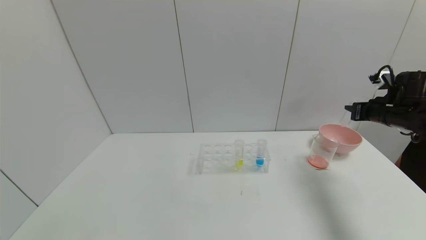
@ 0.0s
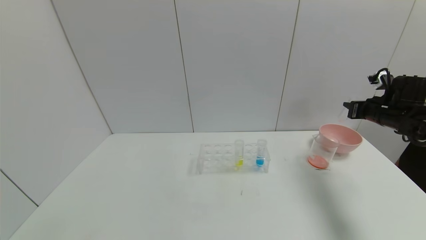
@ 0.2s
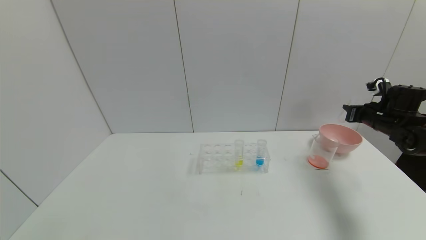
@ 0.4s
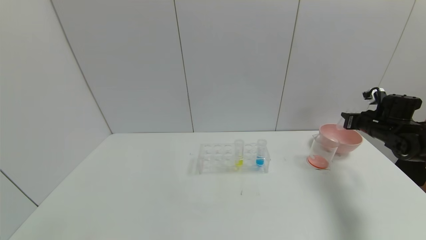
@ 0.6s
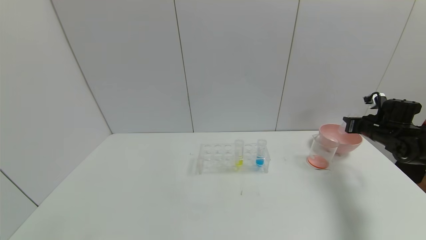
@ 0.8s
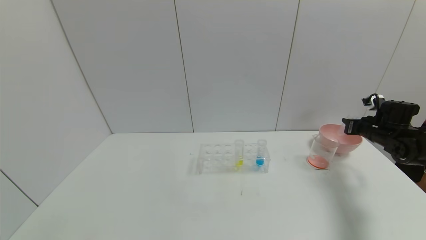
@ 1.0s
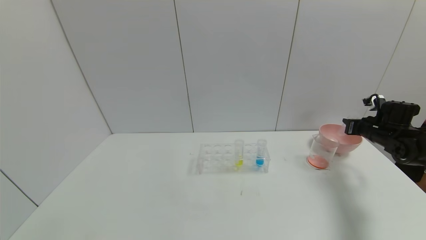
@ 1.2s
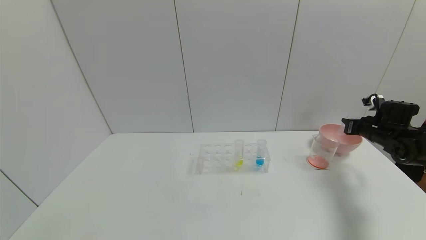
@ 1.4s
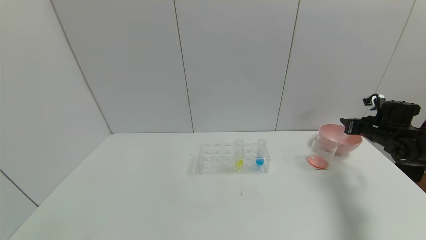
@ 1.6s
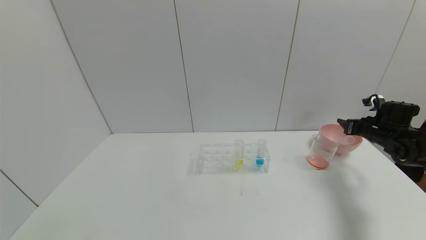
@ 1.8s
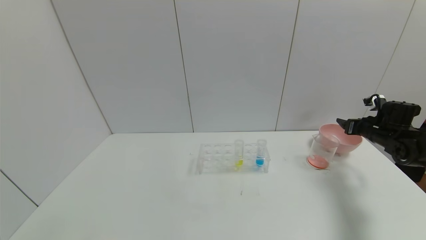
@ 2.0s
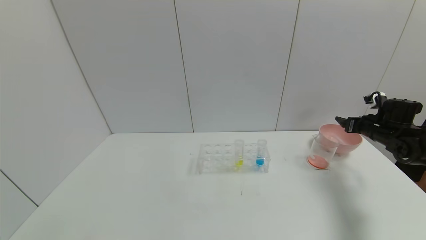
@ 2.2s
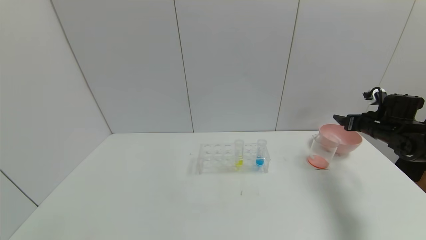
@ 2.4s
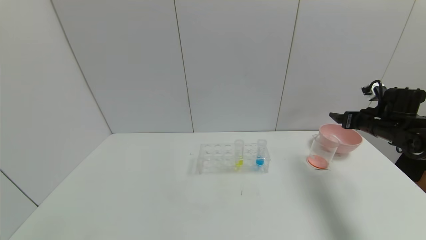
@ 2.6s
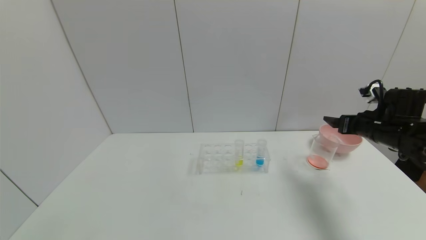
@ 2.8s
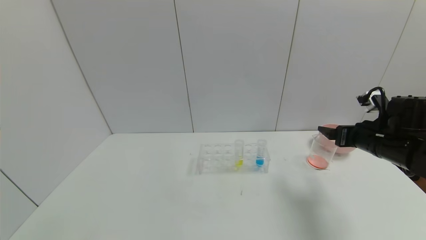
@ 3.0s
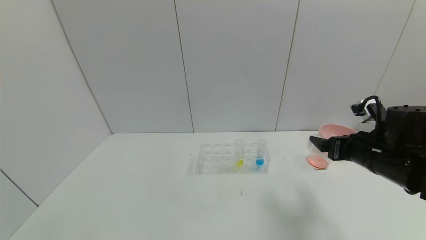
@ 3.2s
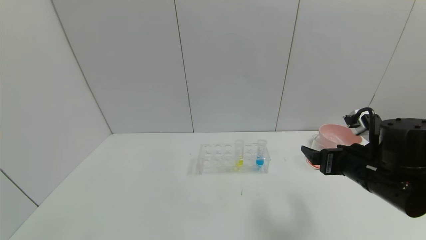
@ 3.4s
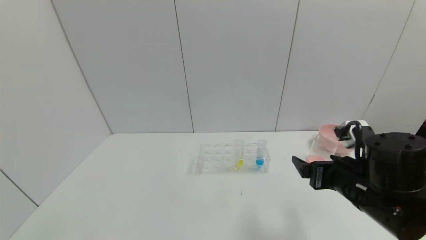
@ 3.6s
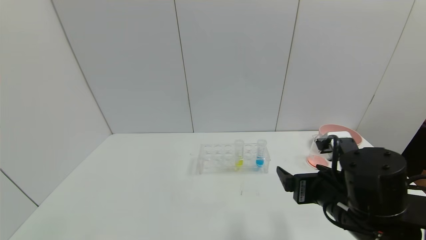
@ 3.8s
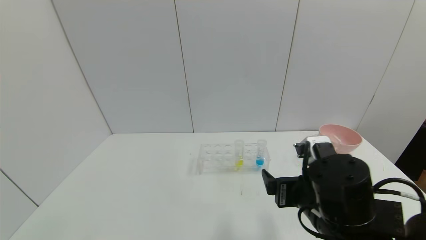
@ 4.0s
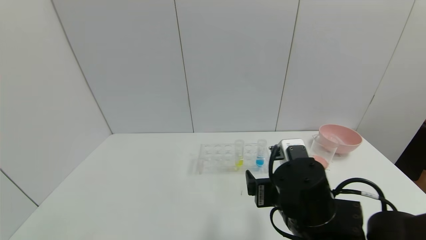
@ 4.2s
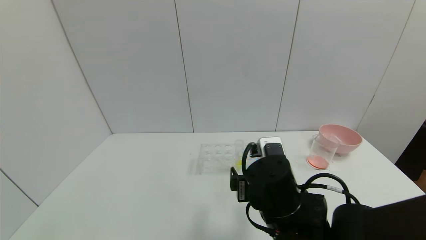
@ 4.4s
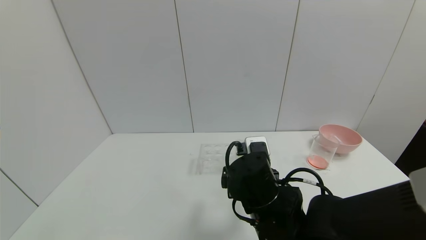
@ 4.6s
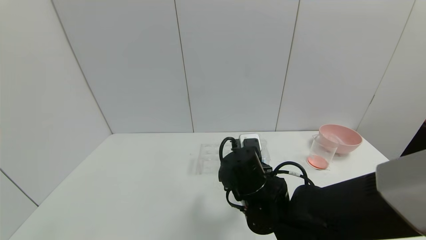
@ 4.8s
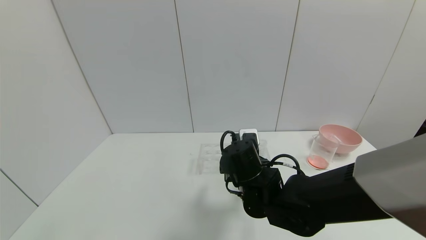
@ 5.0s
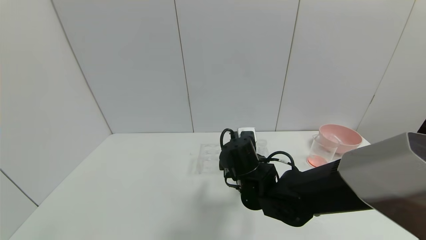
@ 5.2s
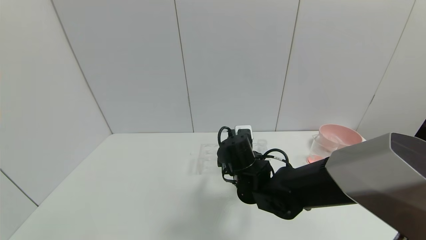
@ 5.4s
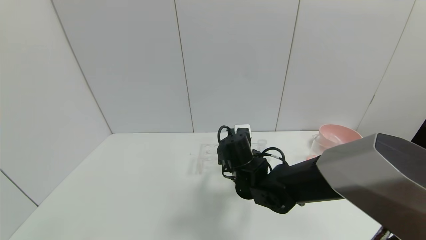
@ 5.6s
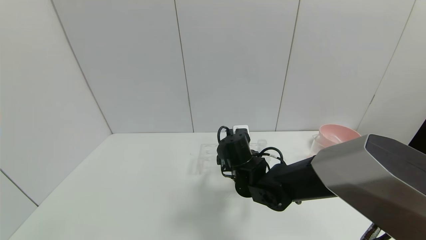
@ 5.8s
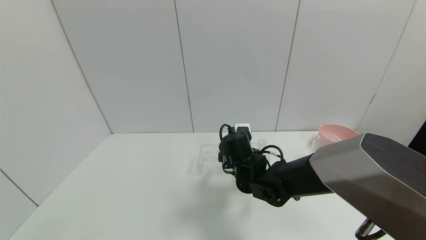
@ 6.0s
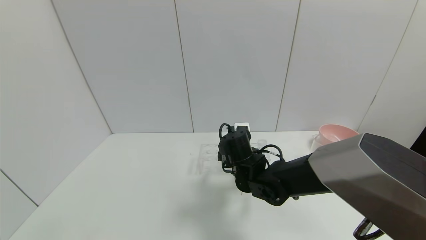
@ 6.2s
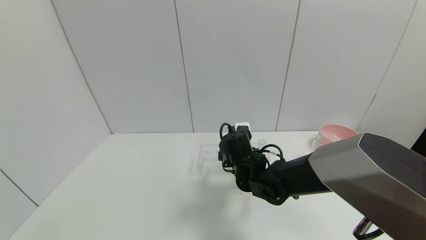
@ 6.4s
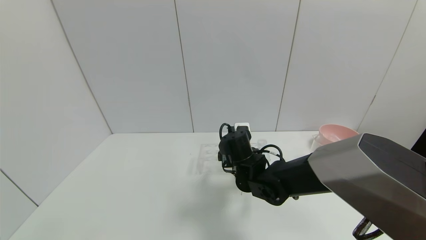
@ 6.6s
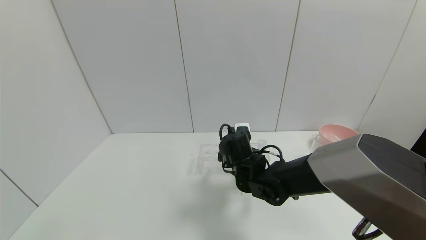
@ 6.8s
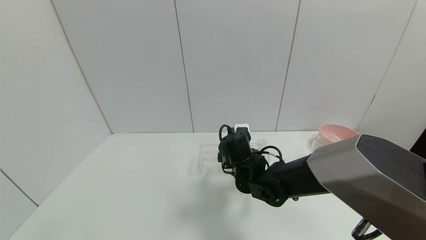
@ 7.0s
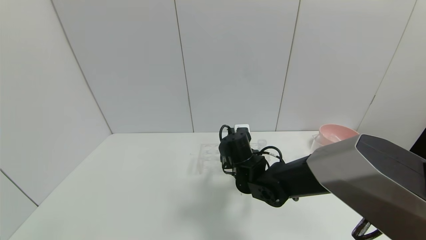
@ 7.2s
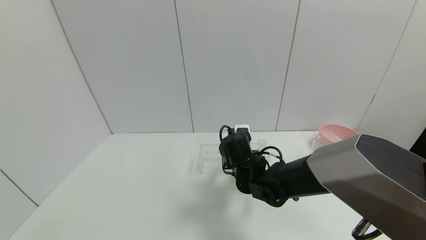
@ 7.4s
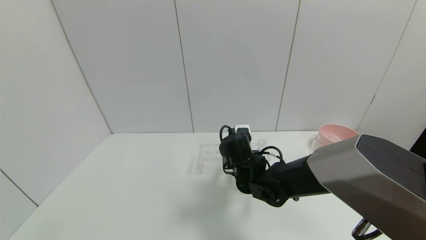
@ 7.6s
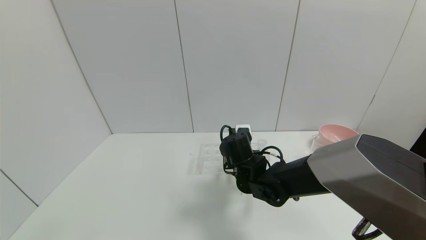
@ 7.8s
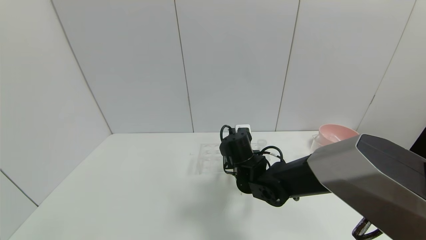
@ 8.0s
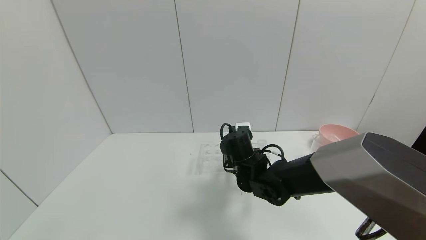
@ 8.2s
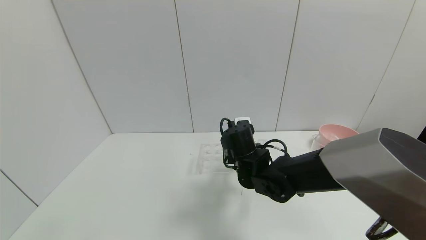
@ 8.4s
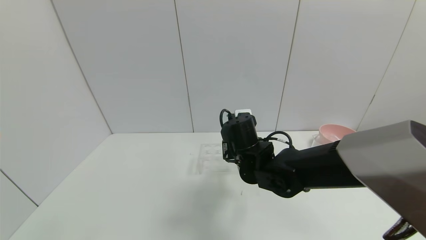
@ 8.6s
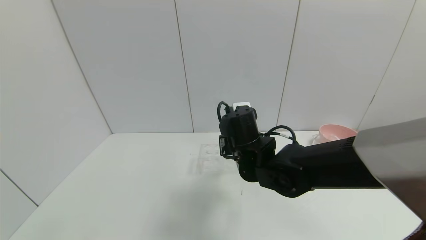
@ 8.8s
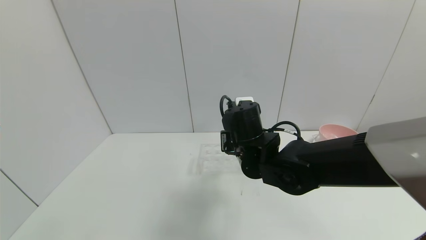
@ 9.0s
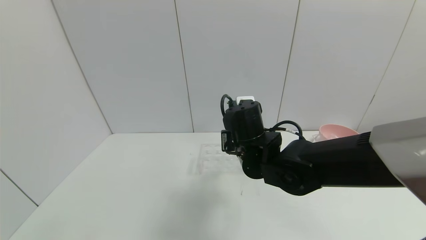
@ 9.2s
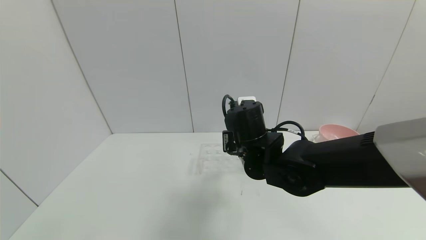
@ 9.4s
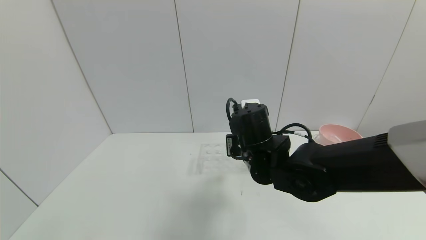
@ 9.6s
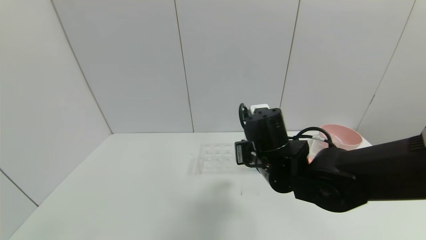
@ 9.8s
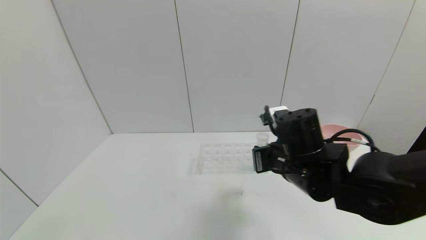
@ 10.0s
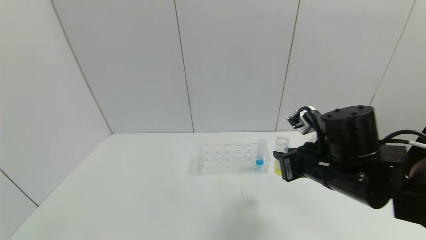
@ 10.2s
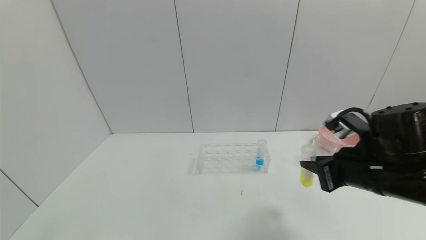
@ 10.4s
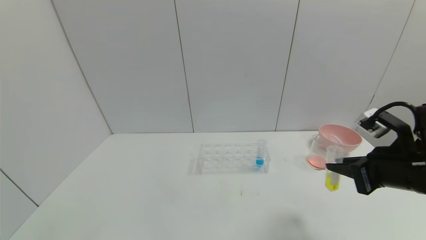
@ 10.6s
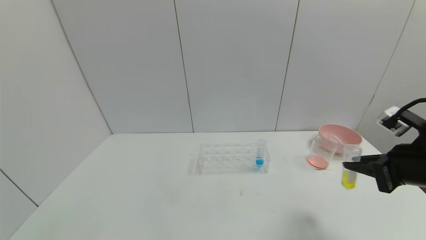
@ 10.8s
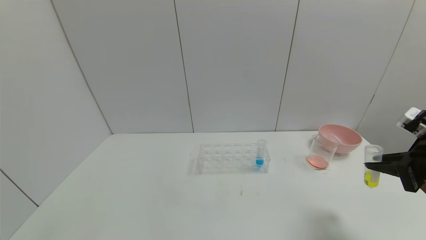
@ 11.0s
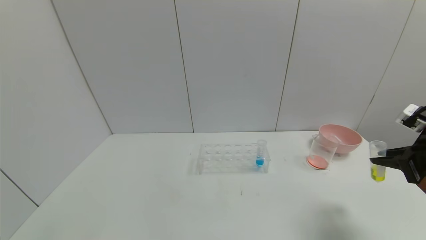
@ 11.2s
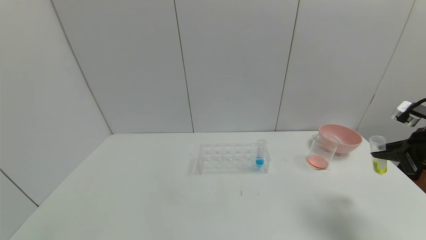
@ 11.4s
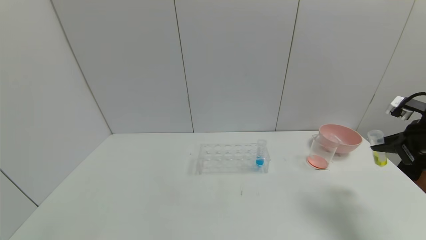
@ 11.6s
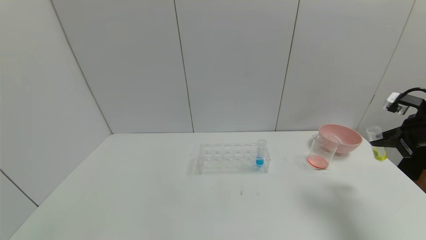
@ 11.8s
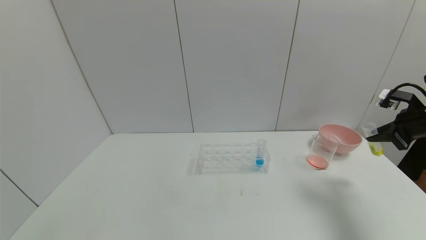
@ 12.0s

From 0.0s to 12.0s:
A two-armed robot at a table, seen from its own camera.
Task of the whole recording: pick up the test tube with yellow pigment and the test tube with red pigment by grippers and pour them into the beaker.
Step, from 2.0s to 7.6s: Grasp the yellow reagent with the right gripper.
From 0.0s to 1.6s: The right gripper goes approximately 10 cm downward.
From 1.6s to 3.0s: The right gripper travels to the left, backward and upward by approximately 15 cm, and opens.
From 3.0s to 4.4s: The right gripper travels to the left and backward by some 25 cm.
From 4.4s to 6.0s: The right gripper travels forward by approximately 15 cm.
From 6.0s to 7.6s: The right gripper closes.
From 7.6s to 9.0s: The right gripper moves upward, about 10 cm.
From 9.0s to 10.4s: The right gripper heads to the right and backward, covering some 20 cm.
From 10.4s to 12.0s: The right gripper heads to the right and forward, covering some 25 cm.

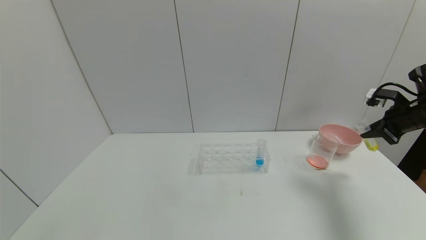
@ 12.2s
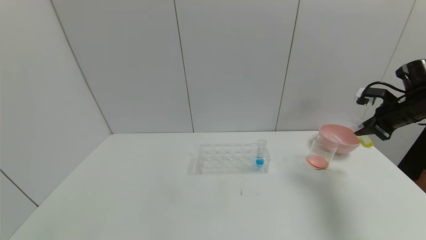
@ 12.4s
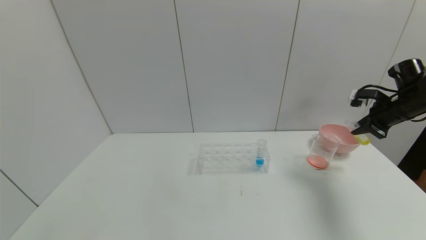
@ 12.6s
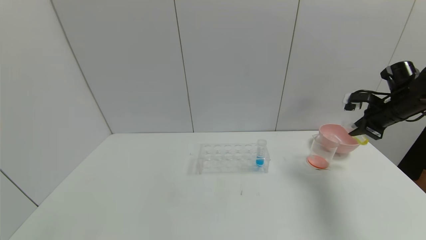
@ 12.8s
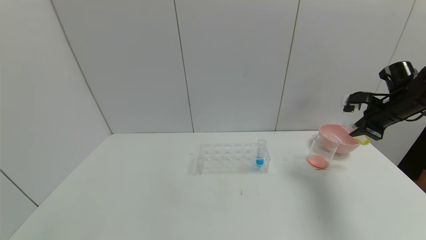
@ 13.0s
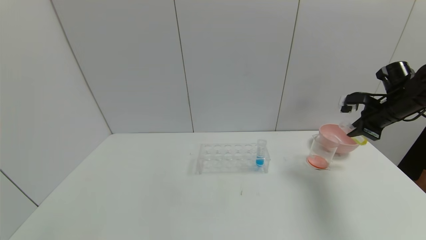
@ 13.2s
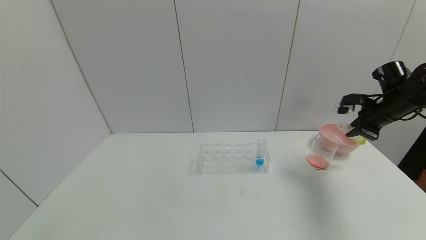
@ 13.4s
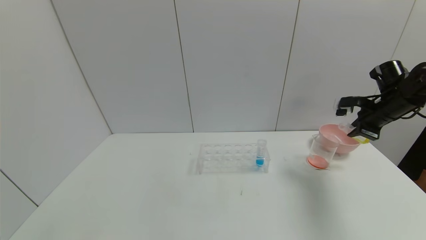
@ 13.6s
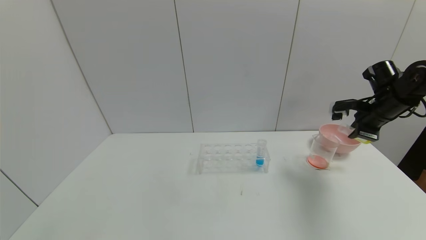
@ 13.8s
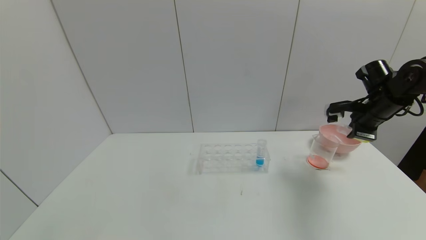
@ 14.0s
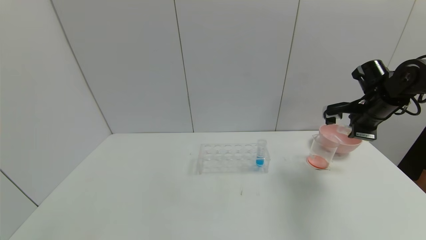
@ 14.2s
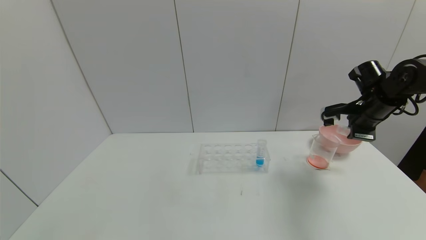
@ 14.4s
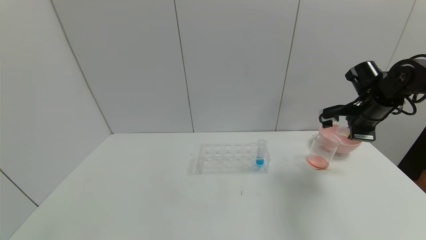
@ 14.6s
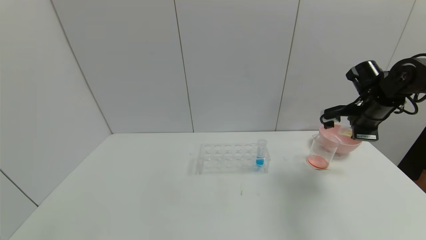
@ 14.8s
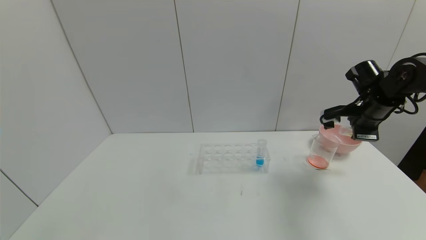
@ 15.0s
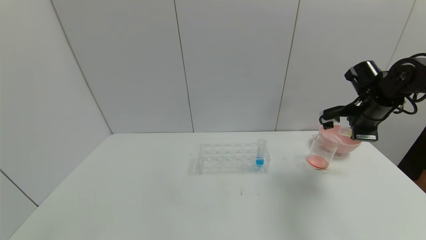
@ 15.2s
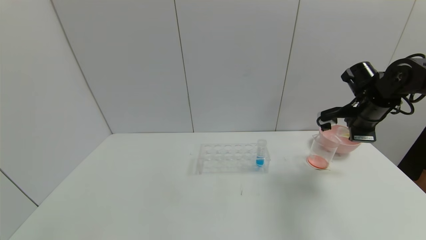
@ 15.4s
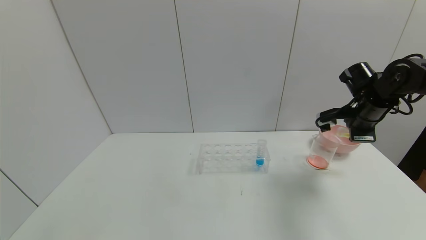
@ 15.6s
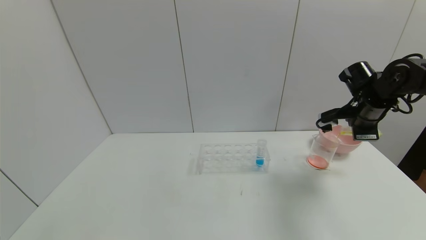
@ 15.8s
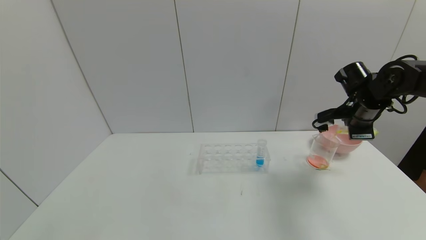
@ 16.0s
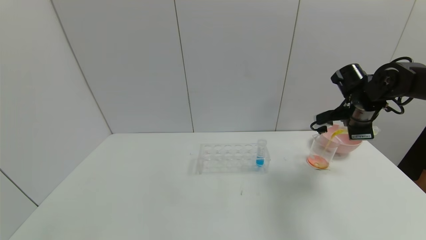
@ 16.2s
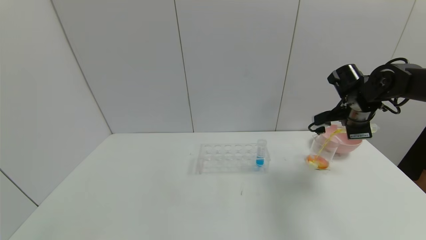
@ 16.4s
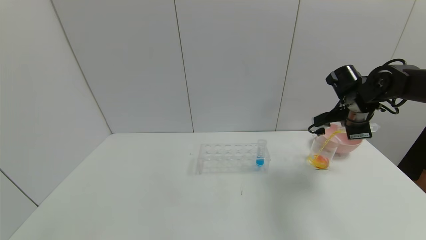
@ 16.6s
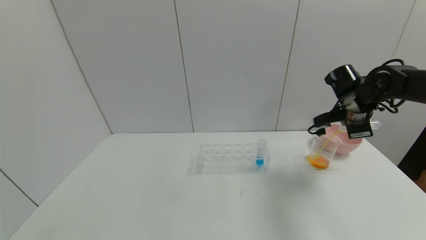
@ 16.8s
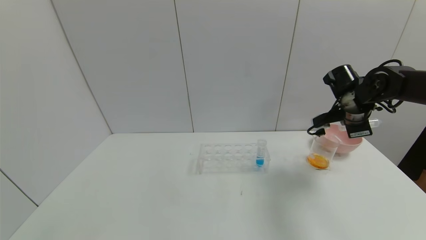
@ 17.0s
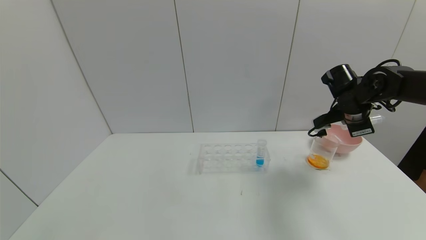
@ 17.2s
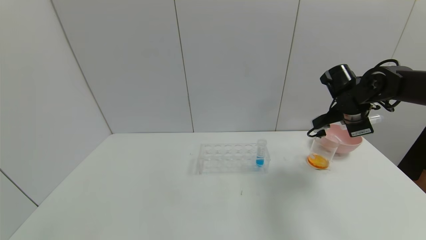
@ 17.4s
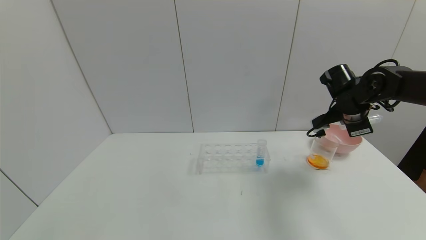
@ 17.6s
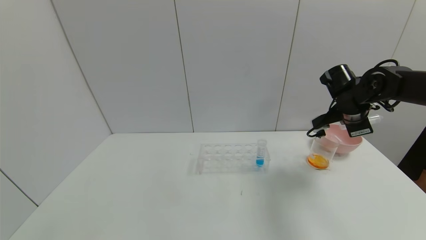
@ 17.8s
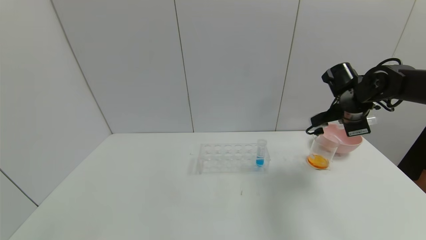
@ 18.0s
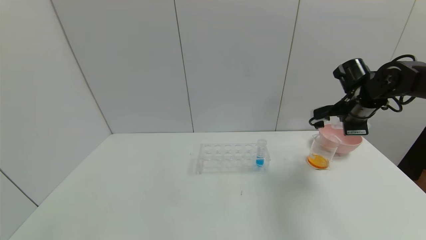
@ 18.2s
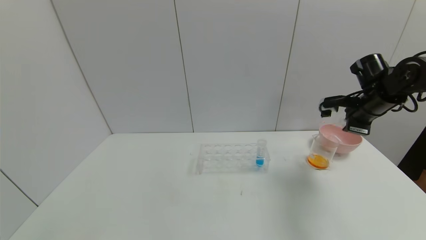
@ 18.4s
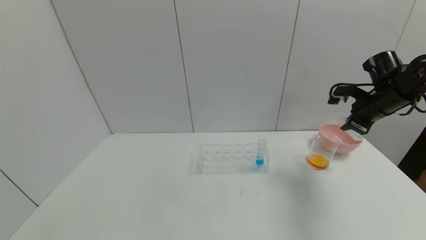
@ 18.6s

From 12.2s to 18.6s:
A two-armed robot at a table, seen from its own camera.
Task of the whole recording: pick up the test tube with yellow pigment and the test tube with red pigment by grippers and pour them into the beaker.
Step, from 12.2s to 17.8s: Pour the yellow reagent into the graduated cylinder with the right gripper.
From 12.2s to 13.8s: The right gripper heads to the left, covering some 5 cm.
From 13.8s to 15.4s: There are only small adjustments of the grippers.
From 17.0s to 18.6s: The right gripper moves to the right, roughly 5 cm.
